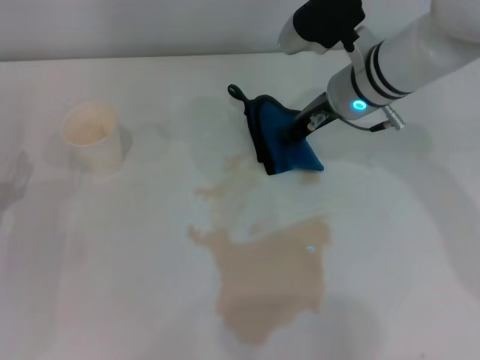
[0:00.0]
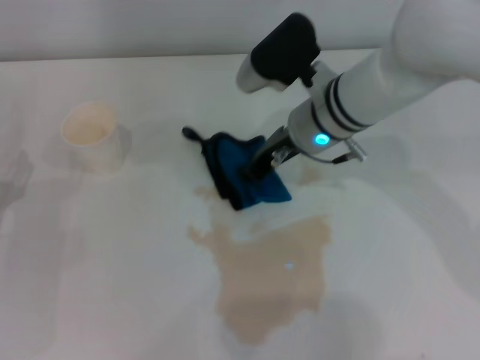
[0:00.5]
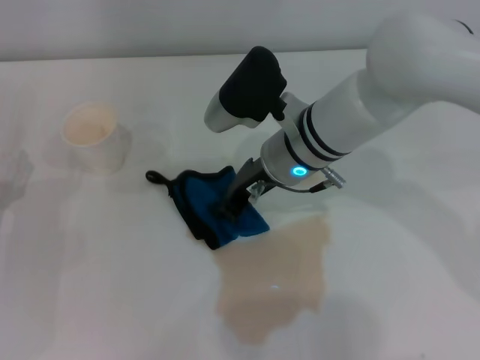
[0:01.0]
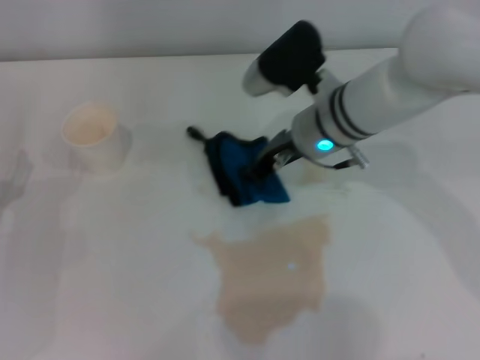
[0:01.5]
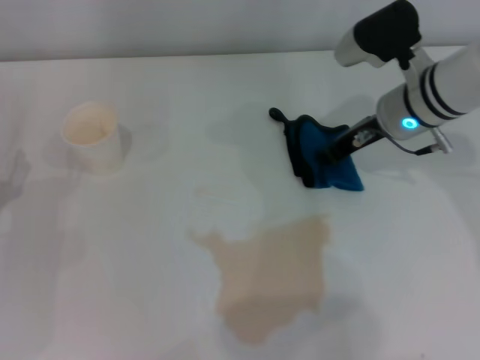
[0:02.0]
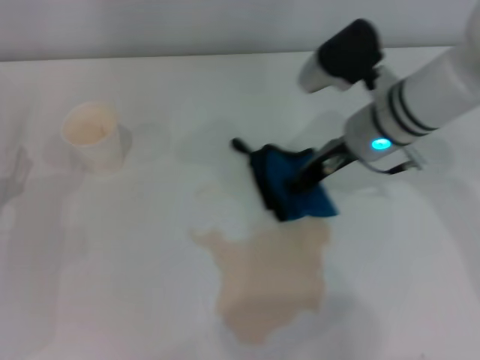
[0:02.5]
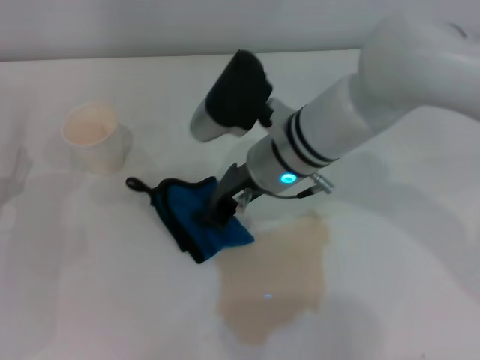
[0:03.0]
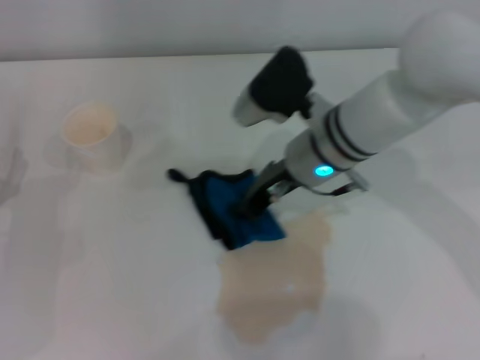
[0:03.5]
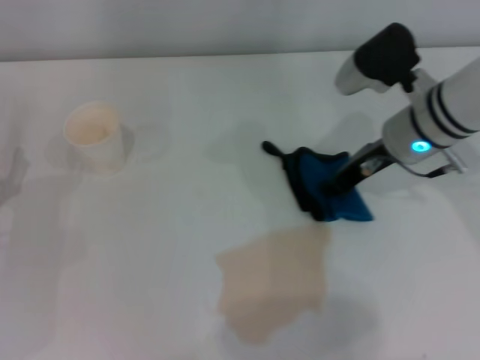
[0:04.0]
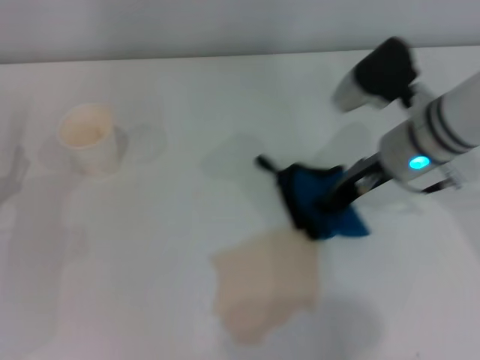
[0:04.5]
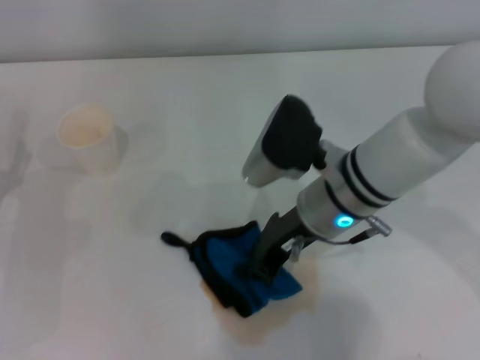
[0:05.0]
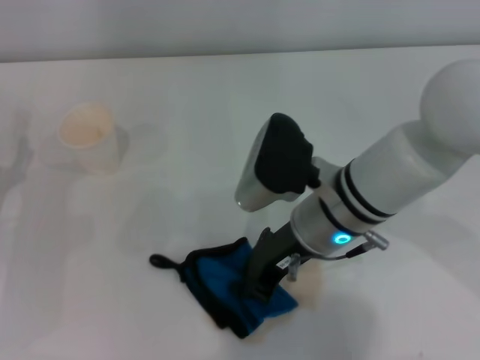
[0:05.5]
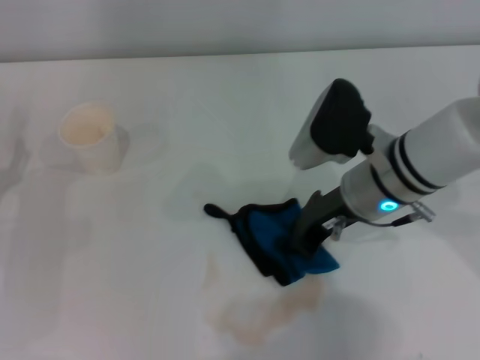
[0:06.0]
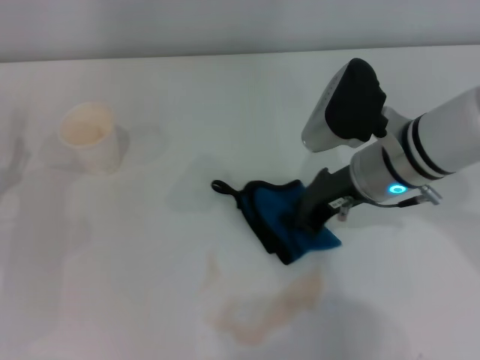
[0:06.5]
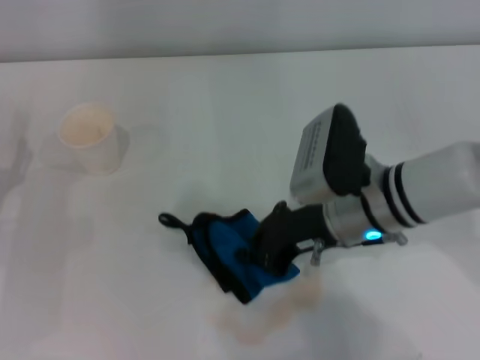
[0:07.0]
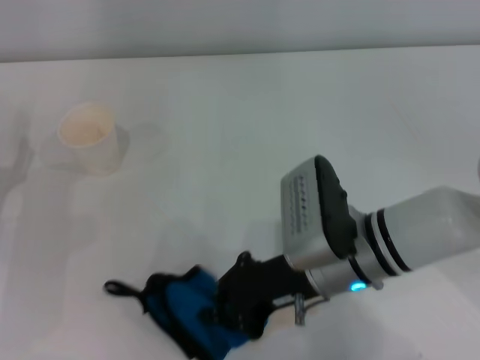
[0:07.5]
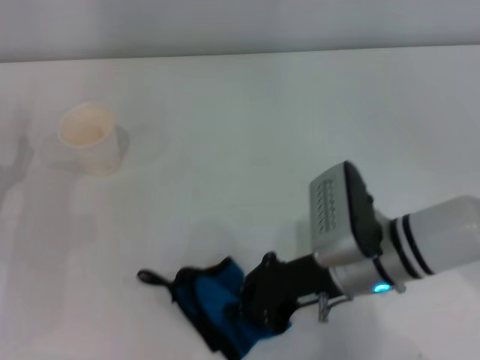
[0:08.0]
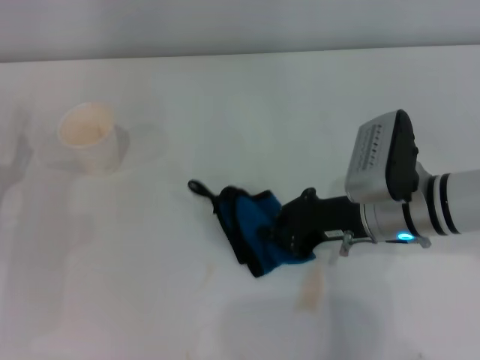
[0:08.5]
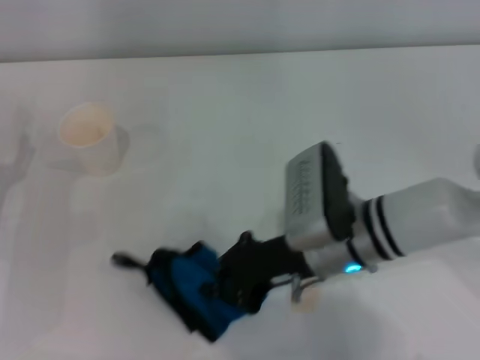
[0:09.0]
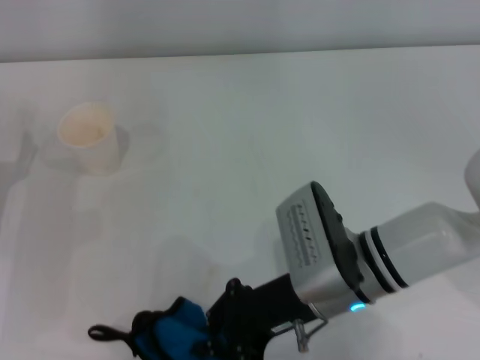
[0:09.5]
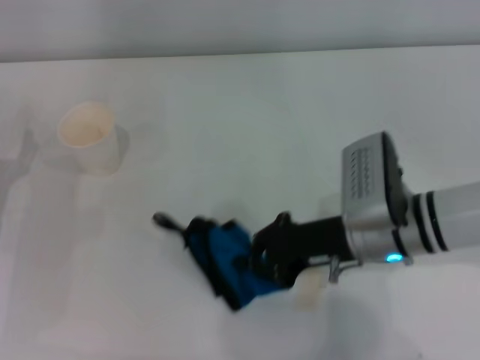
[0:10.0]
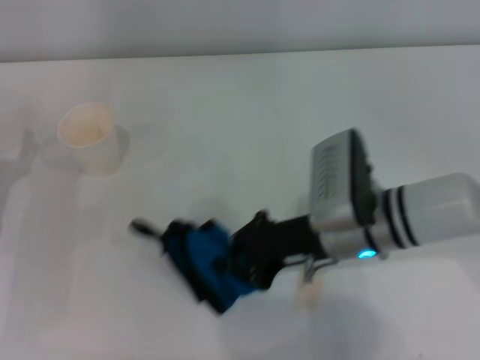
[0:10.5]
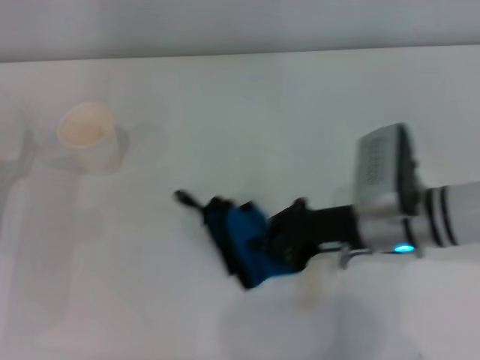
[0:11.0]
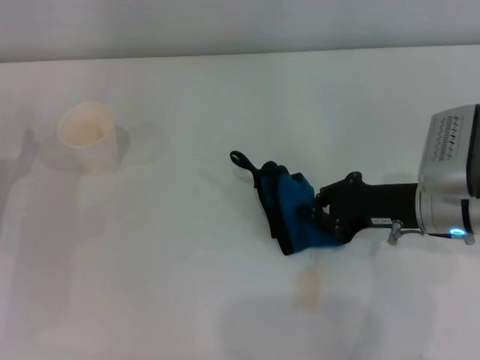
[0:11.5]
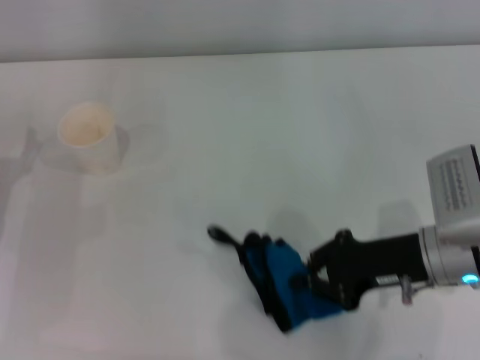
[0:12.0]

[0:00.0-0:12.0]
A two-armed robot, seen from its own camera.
0:00.0 to 0:02.0: The right gripper travels to the right by roughly 5 cm.
0:02.0 to 0:04.0: The right gripper goes to the left and returns, some 15 cm each way.
0:04.0 to 0:06.0: The right gripper moves to the left and backward, roughly 10 cm.
0:06.0 to 0:08.0: The right gripper heads backward, covering about 5 cm.
0:08.0 to 0:10.0: The right gripper goes left and right, some 5 cm each way, reversing 2 times.
0:10.0 to 0:12.0: The right gripper heads to the right, covering approximately 5 cm.

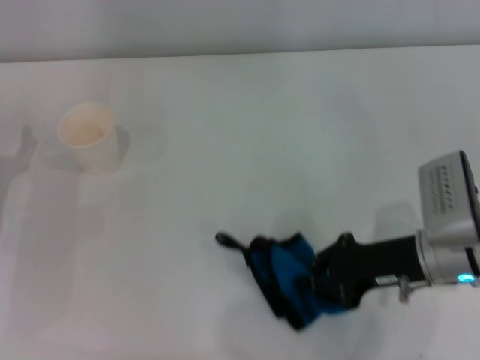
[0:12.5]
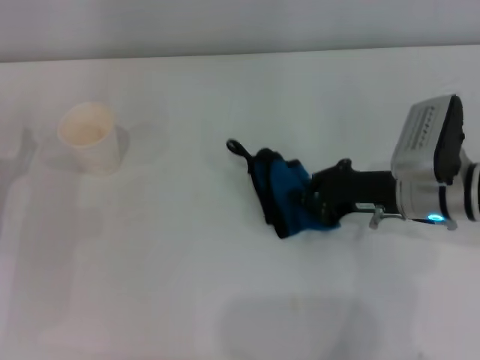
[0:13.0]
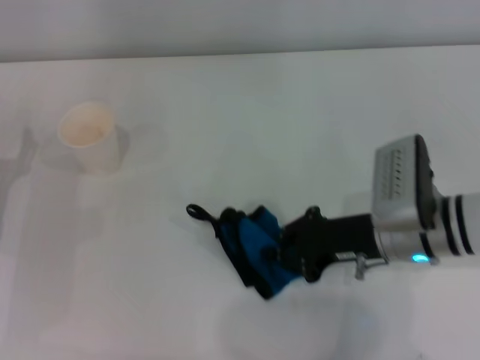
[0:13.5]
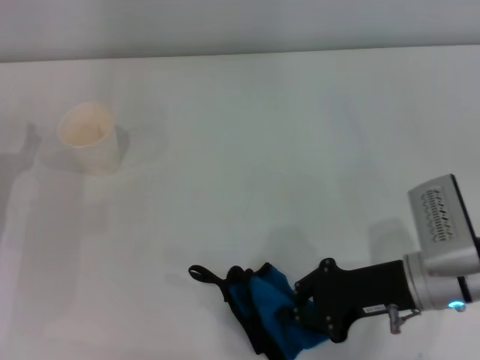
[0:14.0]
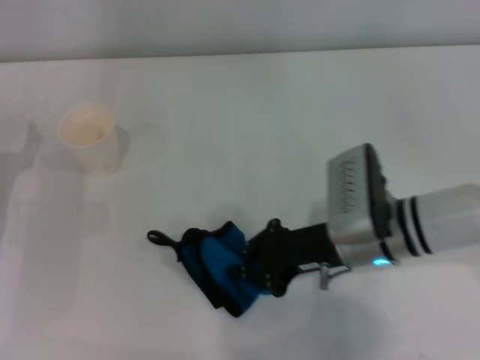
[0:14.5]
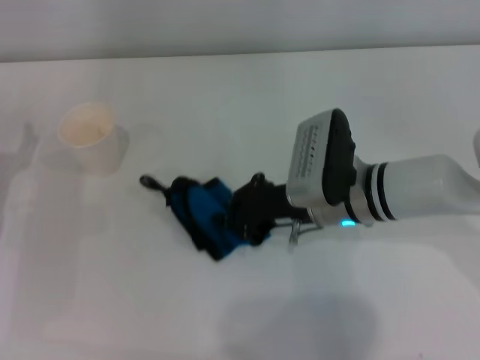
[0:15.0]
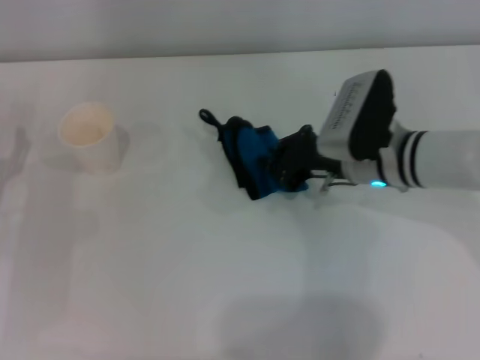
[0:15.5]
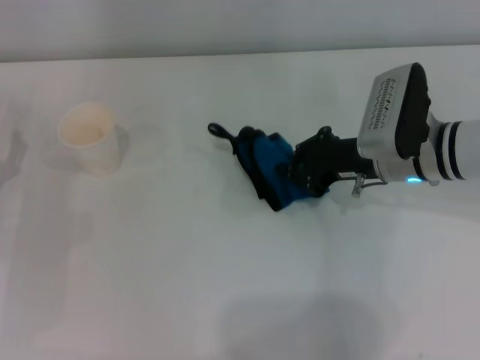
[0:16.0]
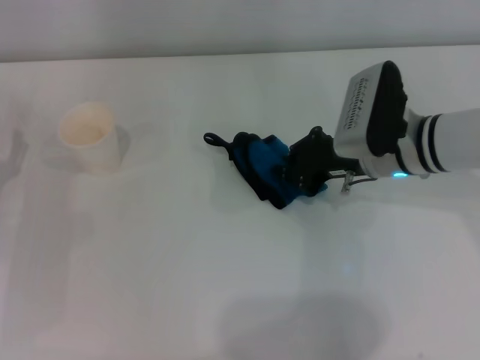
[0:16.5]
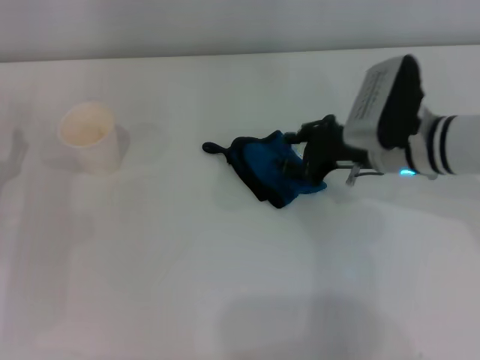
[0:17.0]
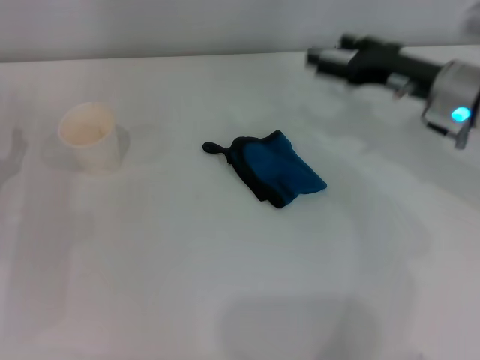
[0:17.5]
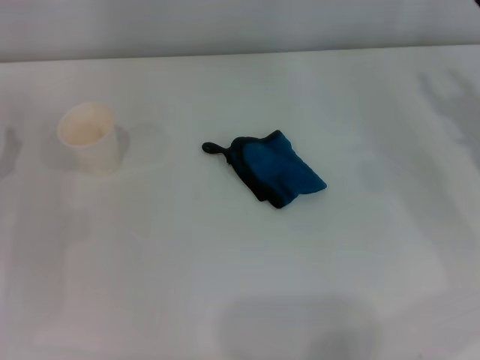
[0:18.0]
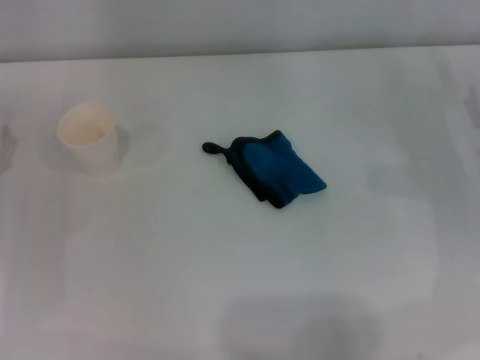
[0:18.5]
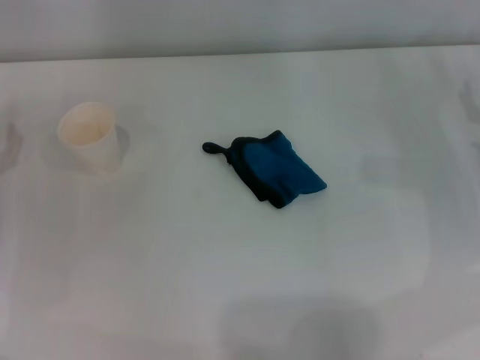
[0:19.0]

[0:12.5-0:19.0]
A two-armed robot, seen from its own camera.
Step, 0:12.5 to 0:15.5: Wipe the stains off the table with the right gripper.
Step, 0:16.0 to 0:16.5: Place the rag on the table with the right gripper.
0:12.5 to 0:14.5: The right gripper is displaced to the left by about 5 cm.
0:14.5 to 0:17.0: The right gripper goes some 5 cm forward.
0:17.0 to 0:19.0: The right gripper is displaced to the right by roughly 15 cm, and opens.
